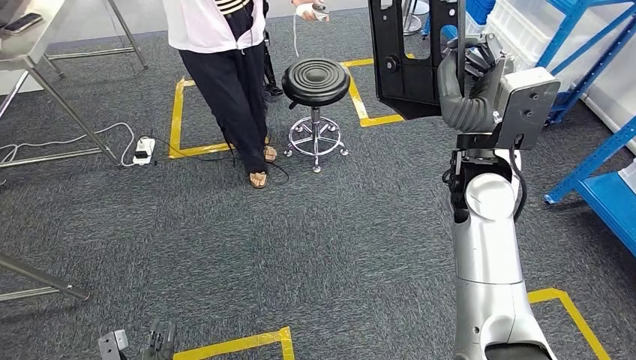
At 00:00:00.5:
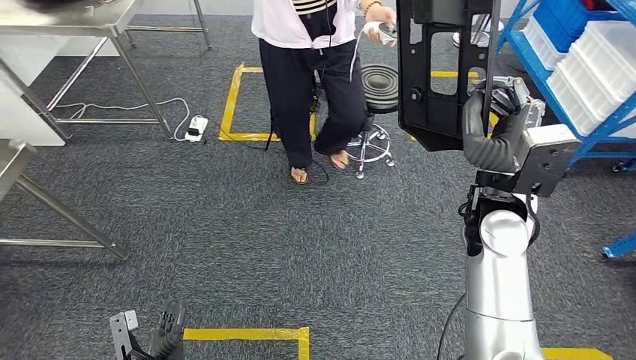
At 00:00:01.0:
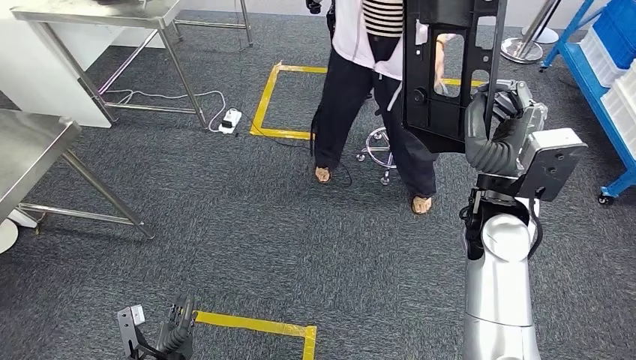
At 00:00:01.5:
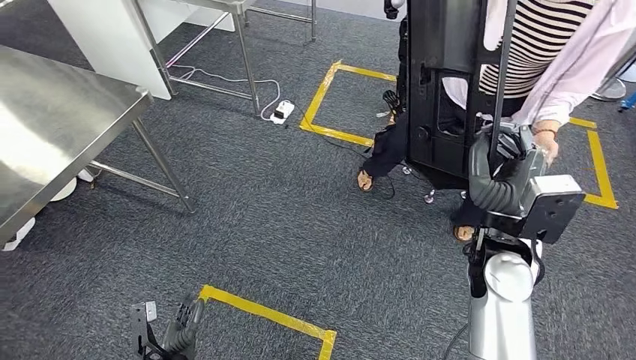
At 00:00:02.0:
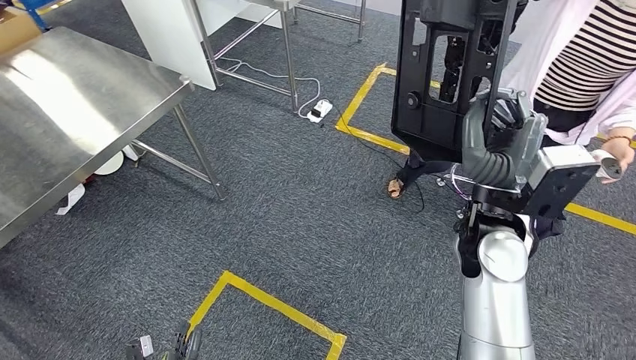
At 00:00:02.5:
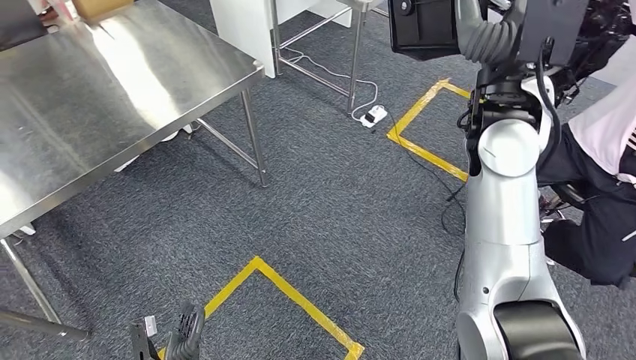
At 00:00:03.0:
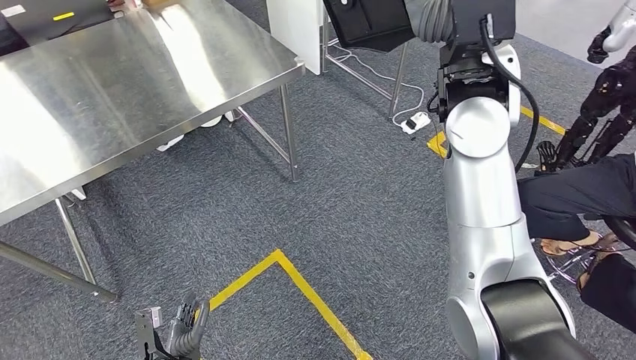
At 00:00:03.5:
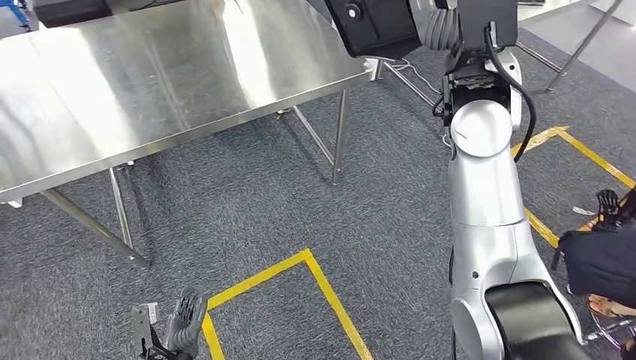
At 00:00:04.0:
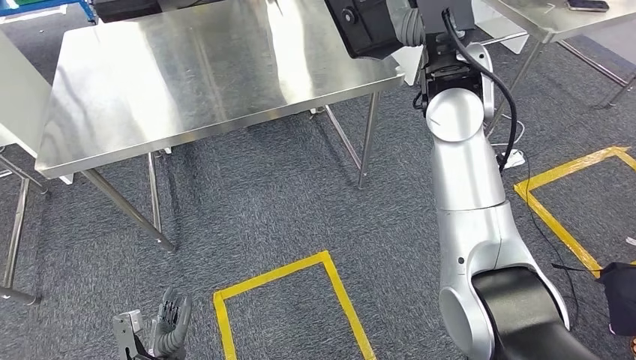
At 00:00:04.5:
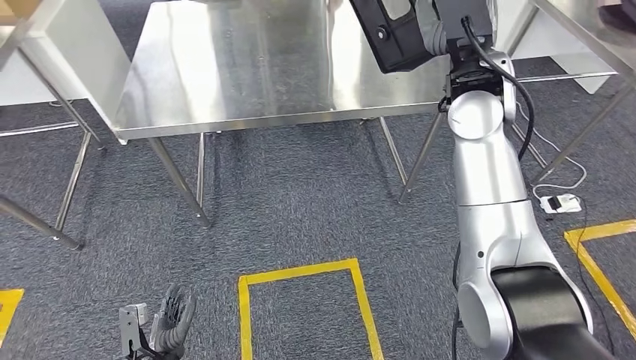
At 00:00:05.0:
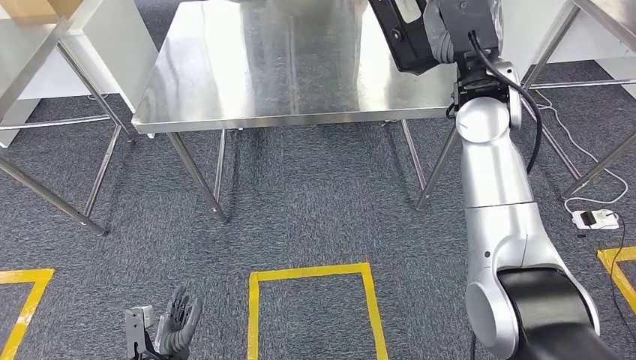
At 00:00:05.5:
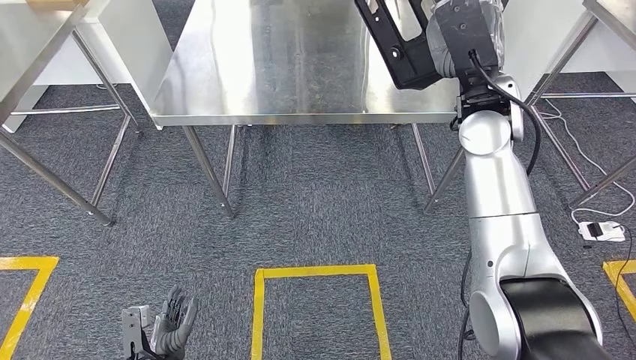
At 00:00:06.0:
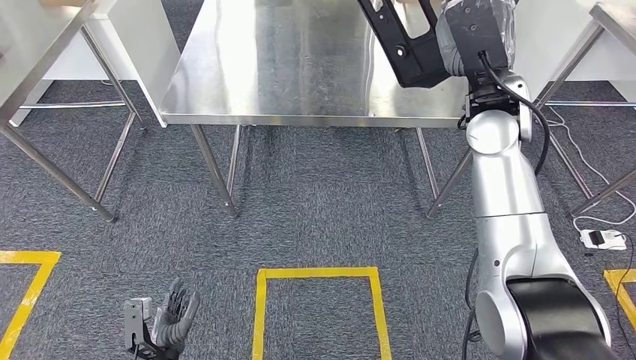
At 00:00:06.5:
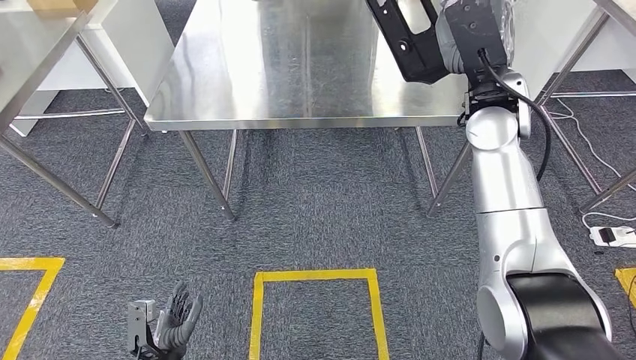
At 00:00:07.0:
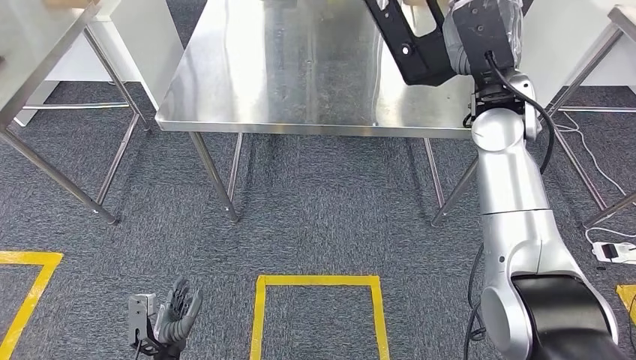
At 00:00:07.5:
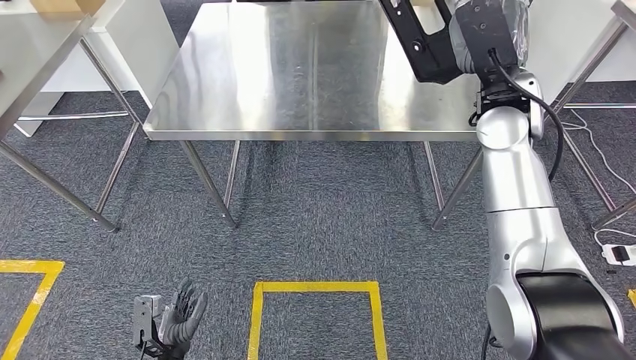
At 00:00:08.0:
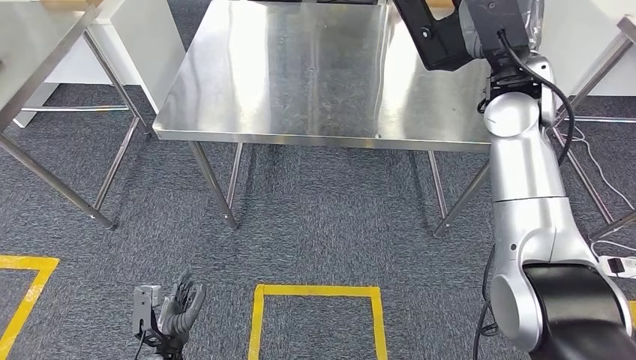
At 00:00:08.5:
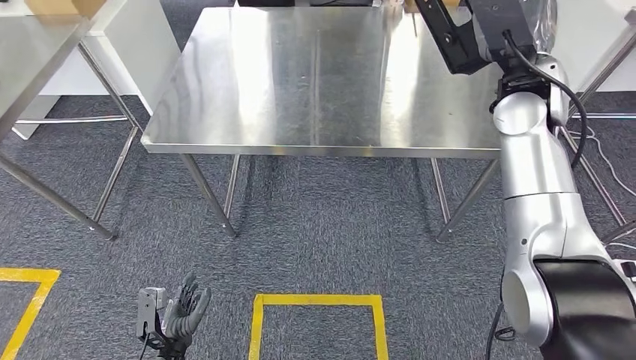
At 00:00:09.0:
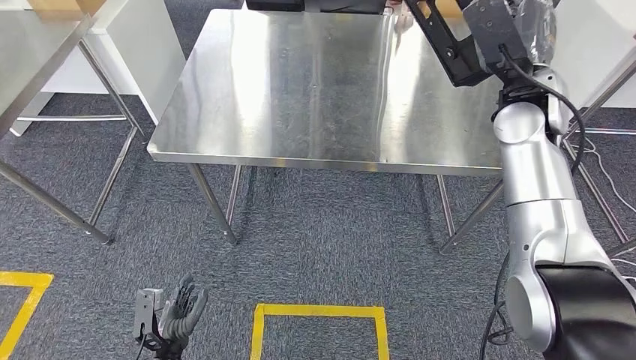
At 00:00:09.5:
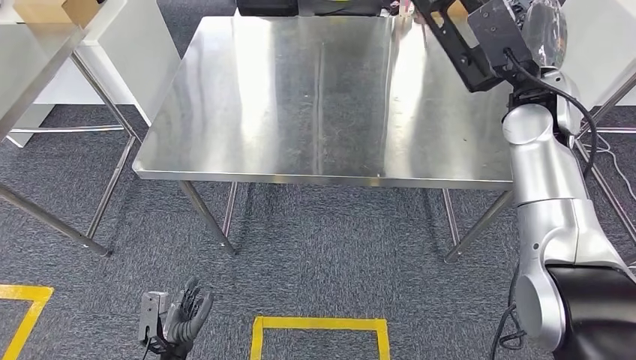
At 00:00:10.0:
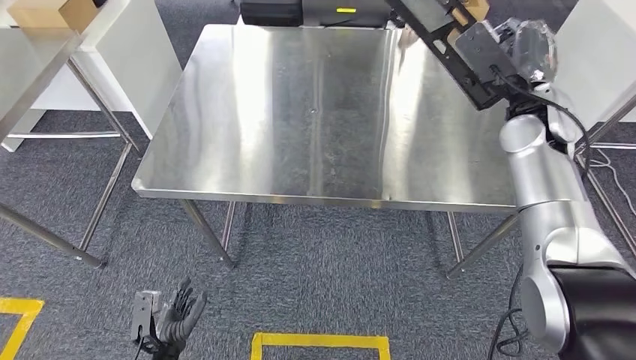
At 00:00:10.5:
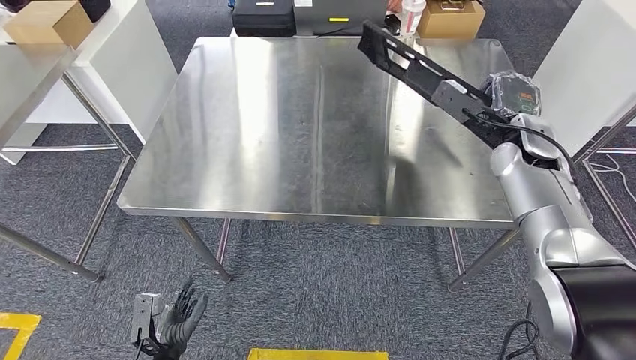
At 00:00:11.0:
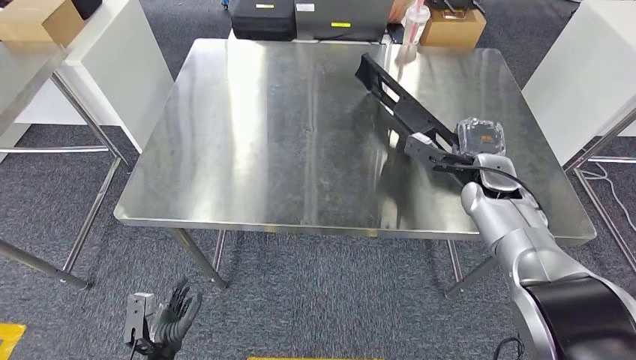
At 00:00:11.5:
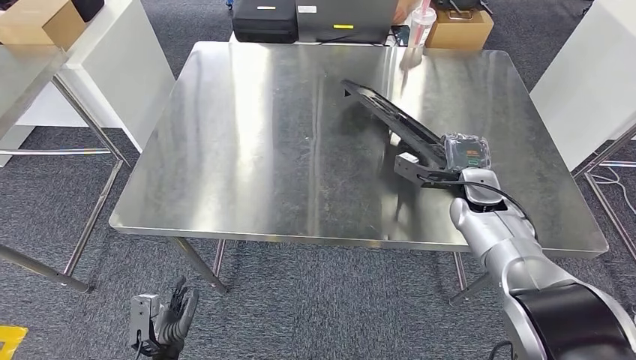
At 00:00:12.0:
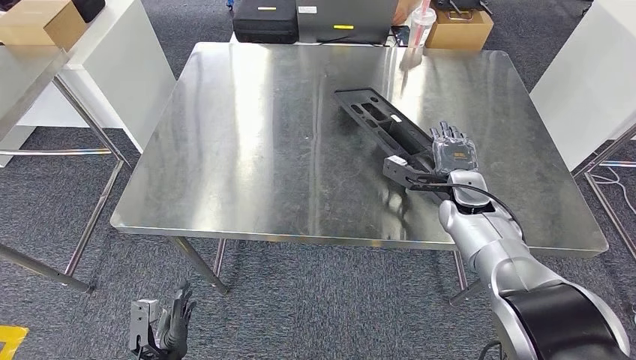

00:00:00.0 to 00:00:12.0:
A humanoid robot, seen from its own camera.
Step, 00:00:00.0 to 00:00:04.5: Move the large material to the workbench.

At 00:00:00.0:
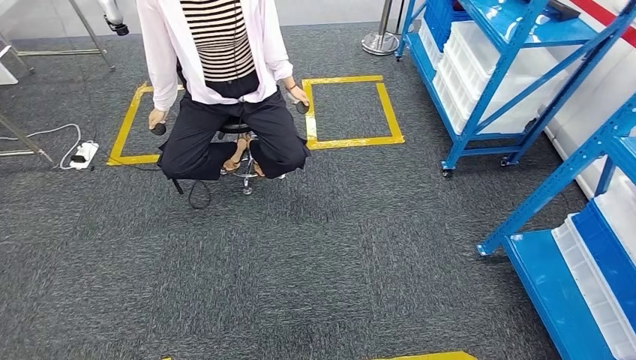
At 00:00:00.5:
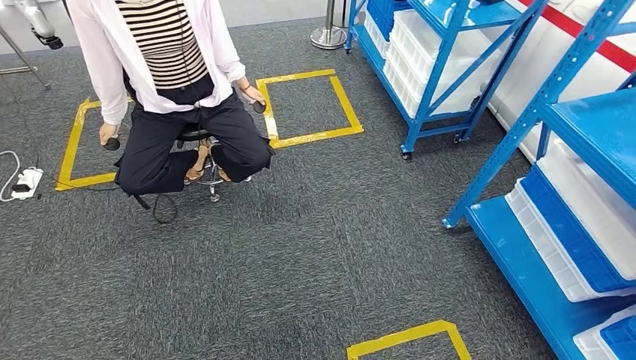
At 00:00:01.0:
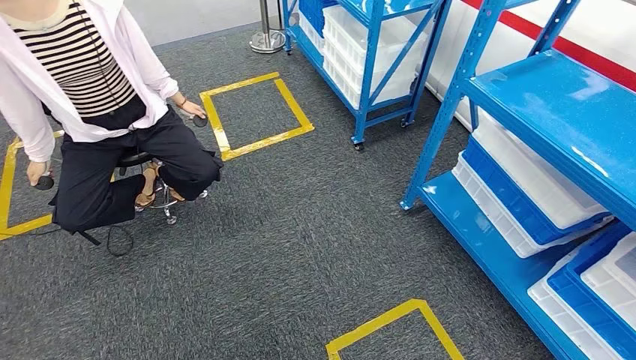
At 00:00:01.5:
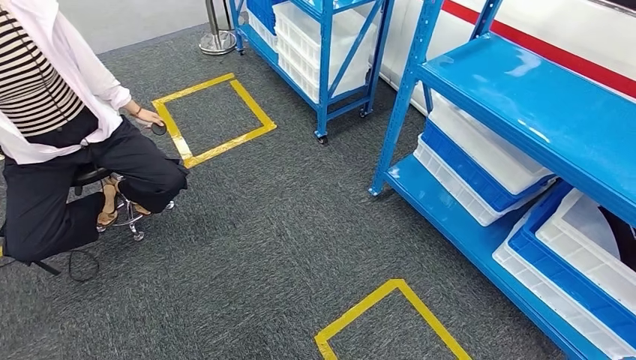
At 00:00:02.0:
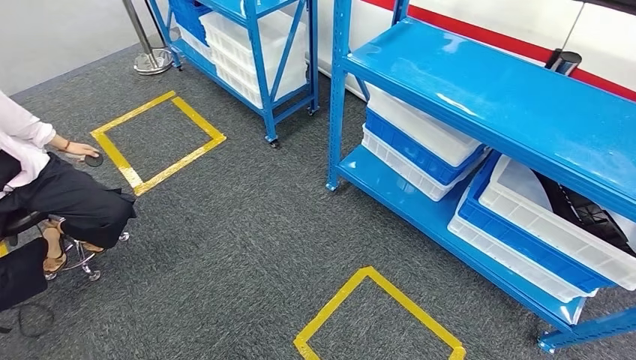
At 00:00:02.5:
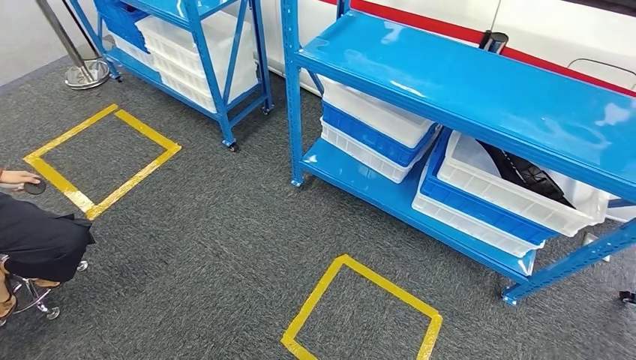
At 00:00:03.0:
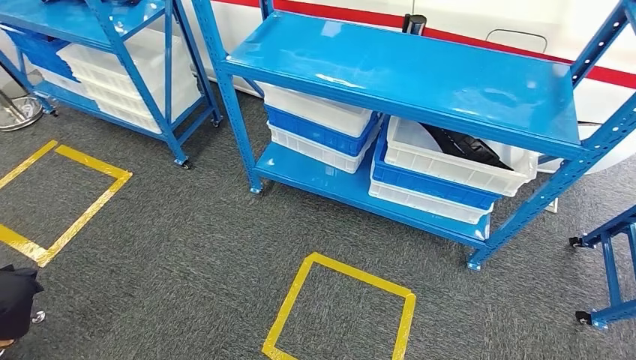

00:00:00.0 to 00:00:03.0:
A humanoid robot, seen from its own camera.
Step, 00:00:00.0 to 00:00:03.0: Return to the initial position at the shelf.

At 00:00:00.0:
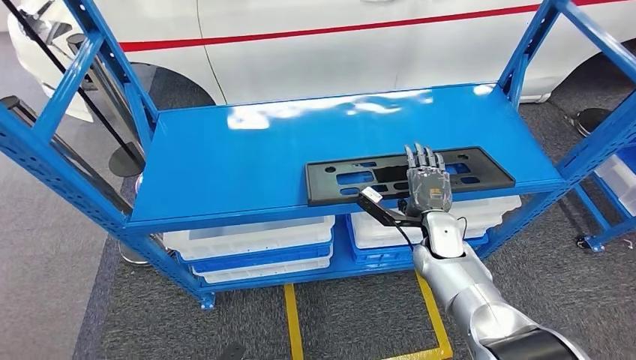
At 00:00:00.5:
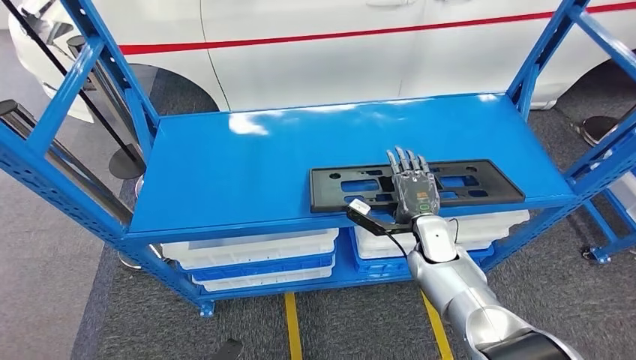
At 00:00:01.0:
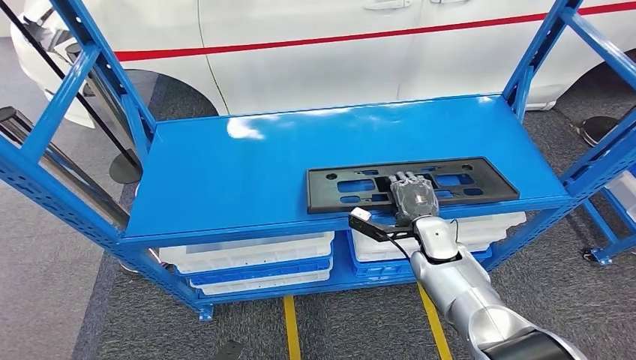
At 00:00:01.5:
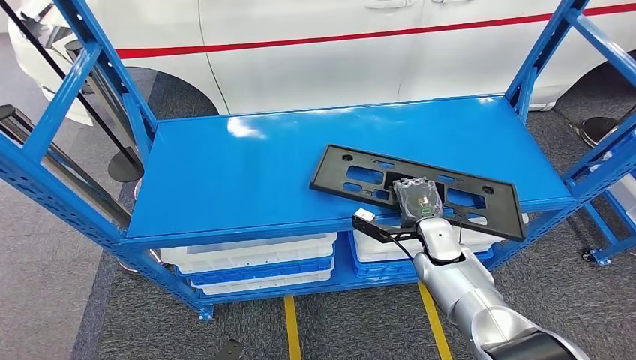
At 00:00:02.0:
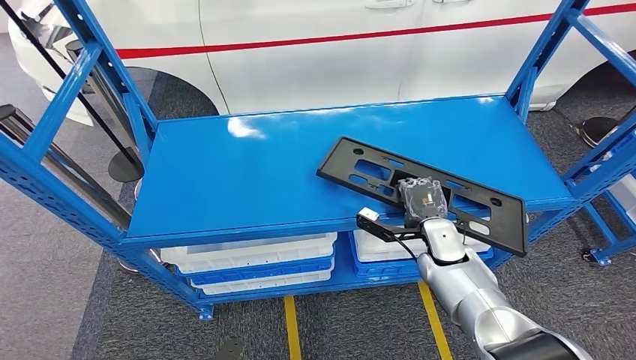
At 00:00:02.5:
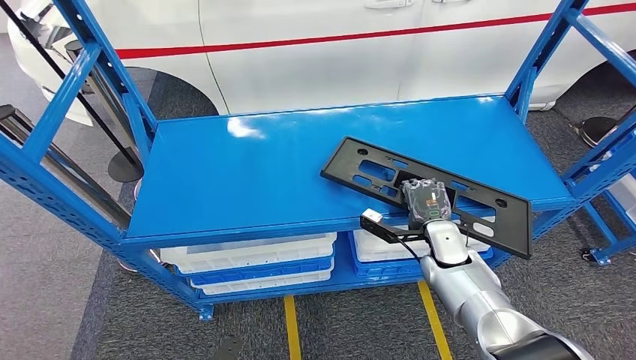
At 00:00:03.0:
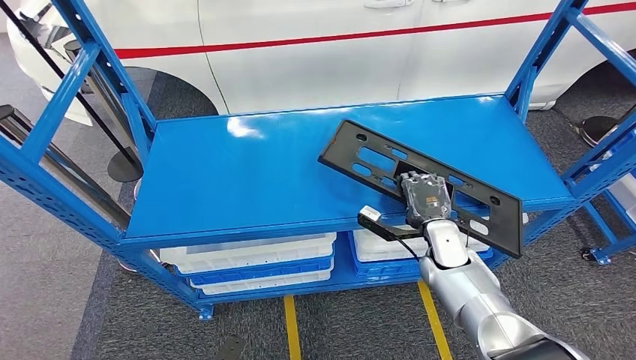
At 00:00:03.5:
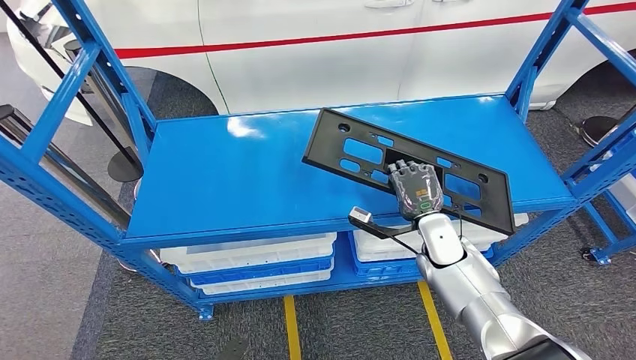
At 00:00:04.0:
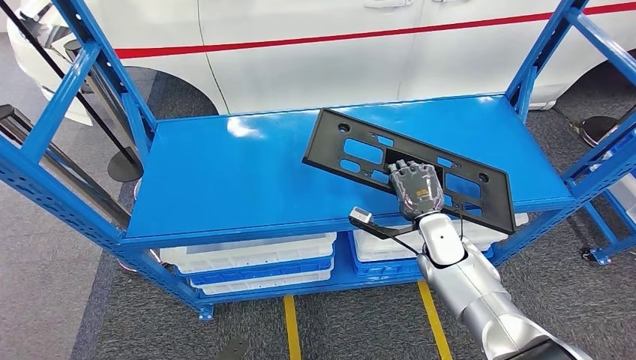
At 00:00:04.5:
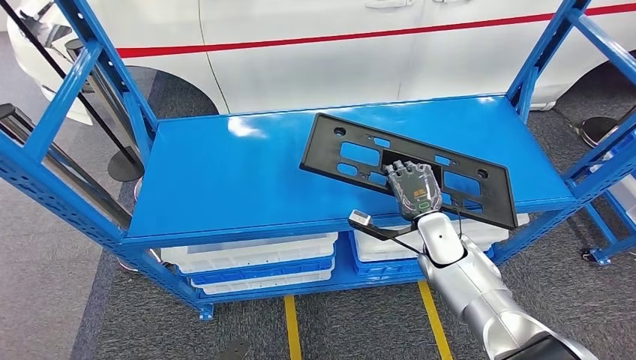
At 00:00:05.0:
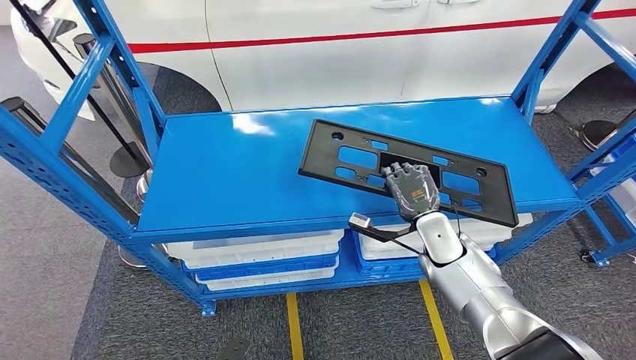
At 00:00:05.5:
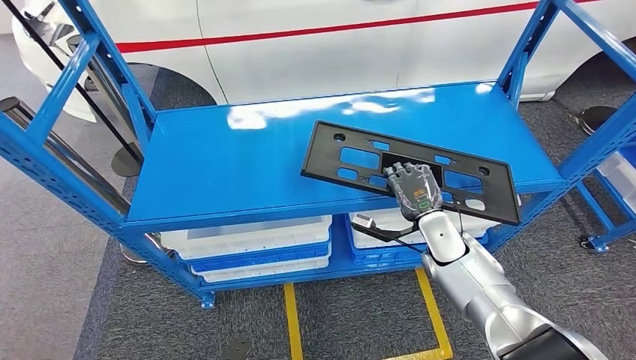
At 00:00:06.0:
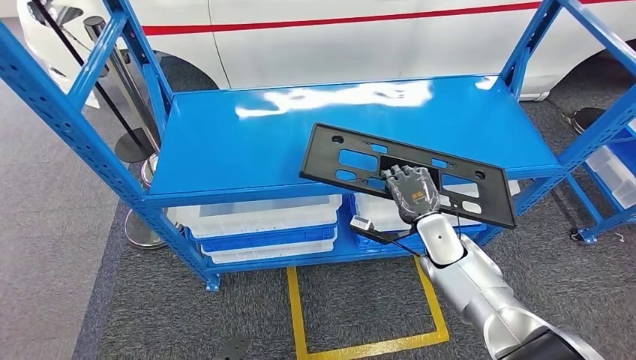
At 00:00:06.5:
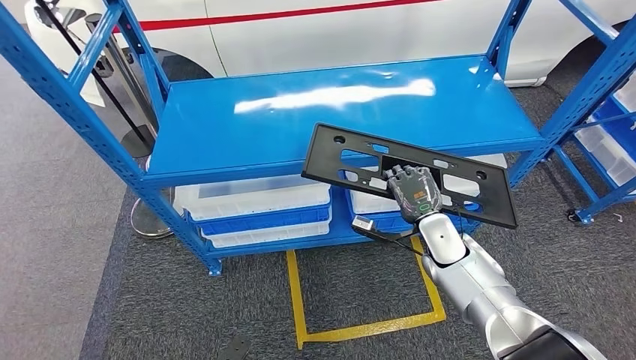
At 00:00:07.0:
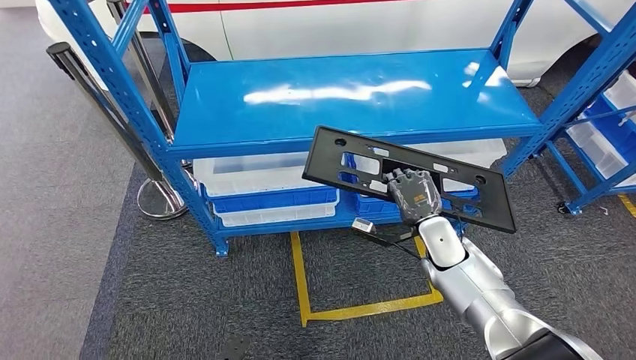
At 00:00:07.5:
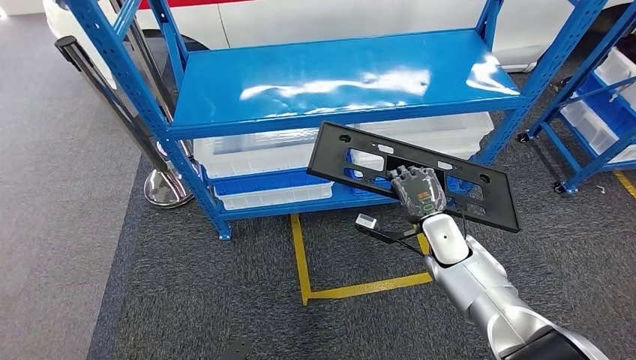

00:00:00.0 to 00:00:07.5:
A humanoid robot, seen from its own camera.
Step, 00:00:00.0 to 00:00:03.5: Pick up the large material from the shelf.
